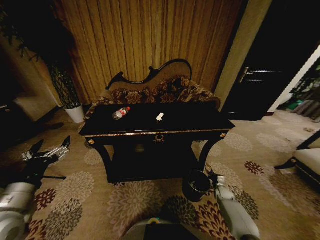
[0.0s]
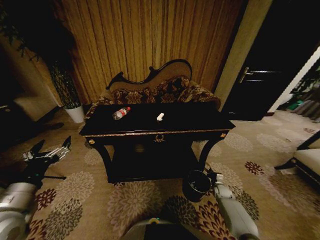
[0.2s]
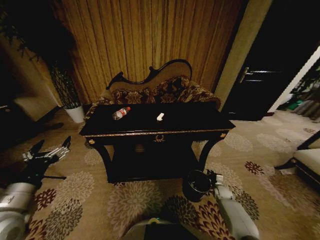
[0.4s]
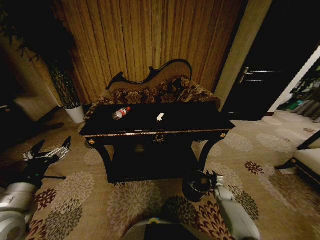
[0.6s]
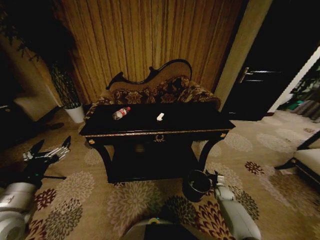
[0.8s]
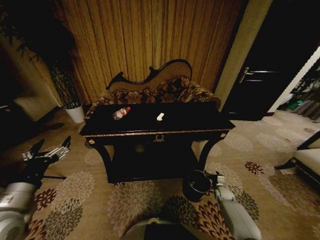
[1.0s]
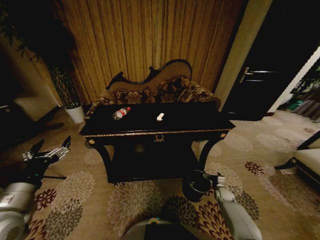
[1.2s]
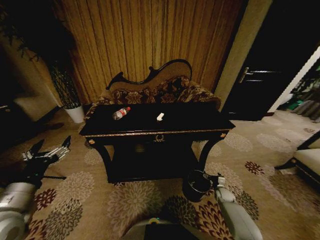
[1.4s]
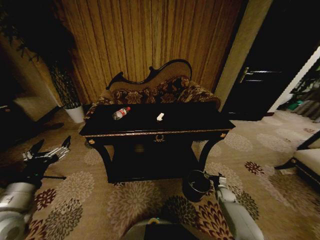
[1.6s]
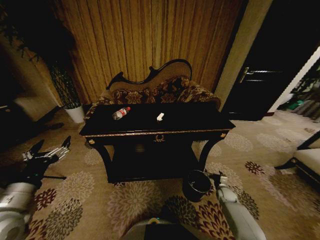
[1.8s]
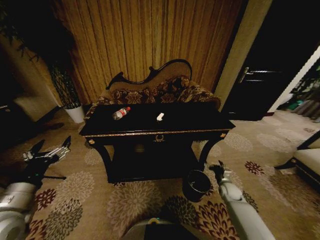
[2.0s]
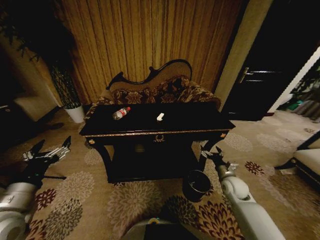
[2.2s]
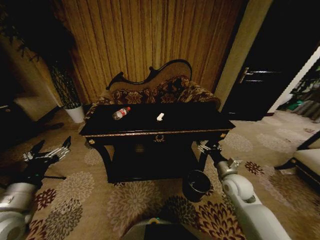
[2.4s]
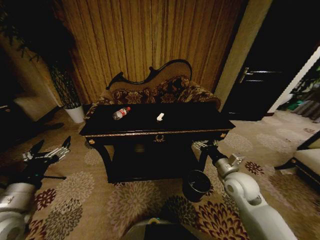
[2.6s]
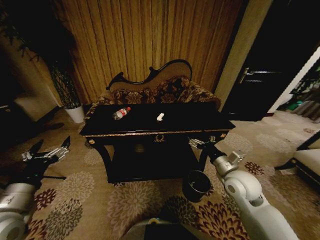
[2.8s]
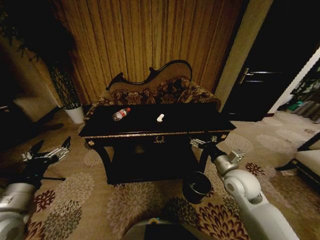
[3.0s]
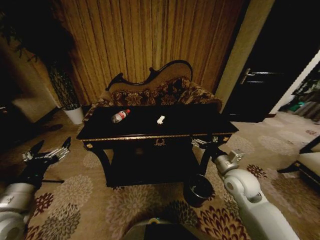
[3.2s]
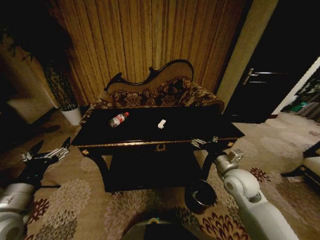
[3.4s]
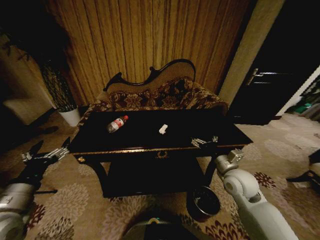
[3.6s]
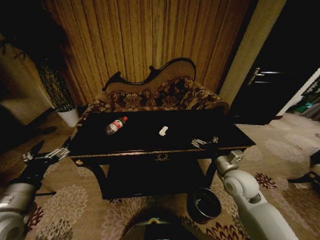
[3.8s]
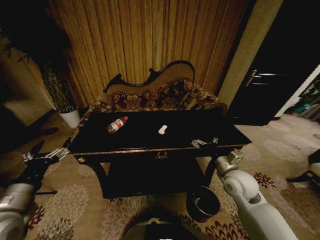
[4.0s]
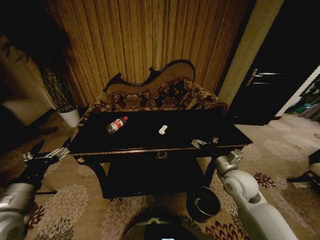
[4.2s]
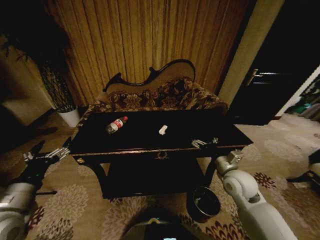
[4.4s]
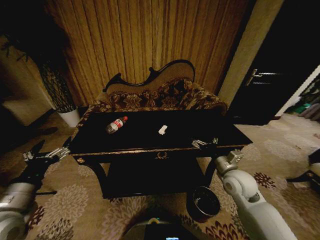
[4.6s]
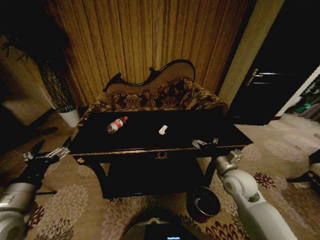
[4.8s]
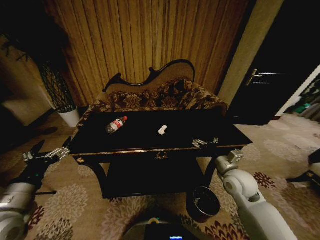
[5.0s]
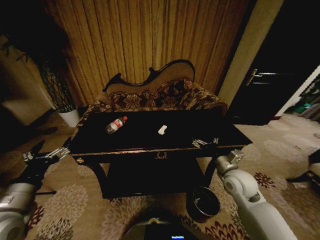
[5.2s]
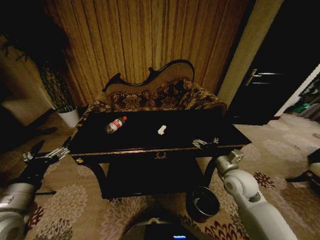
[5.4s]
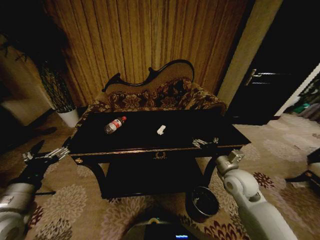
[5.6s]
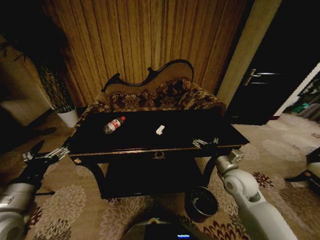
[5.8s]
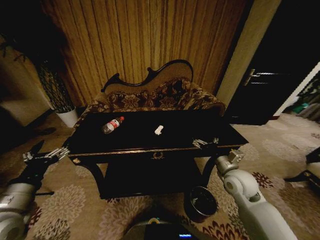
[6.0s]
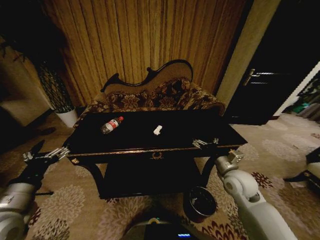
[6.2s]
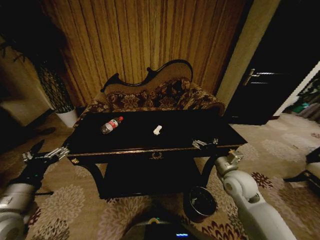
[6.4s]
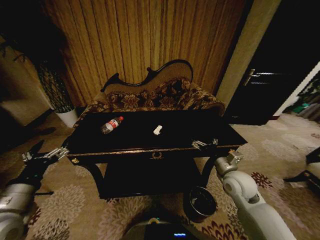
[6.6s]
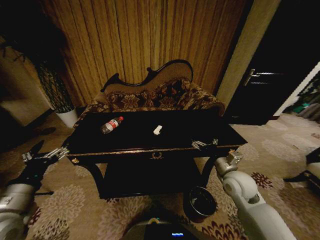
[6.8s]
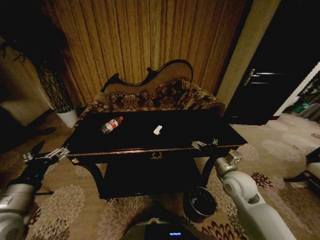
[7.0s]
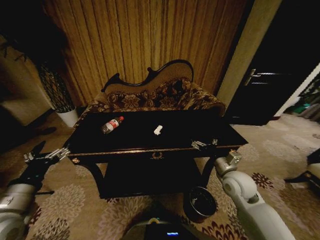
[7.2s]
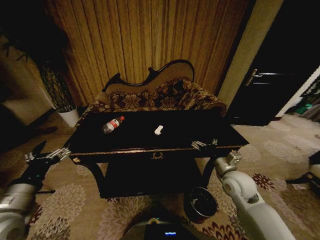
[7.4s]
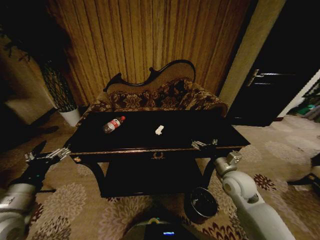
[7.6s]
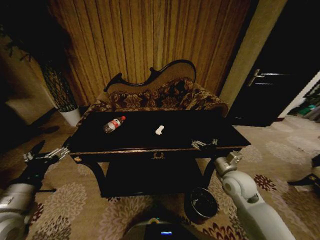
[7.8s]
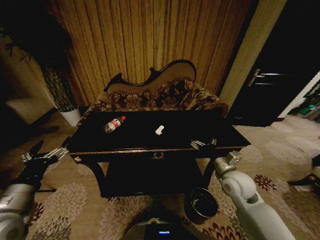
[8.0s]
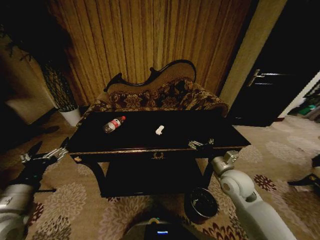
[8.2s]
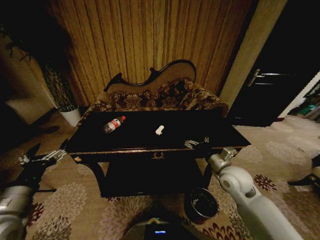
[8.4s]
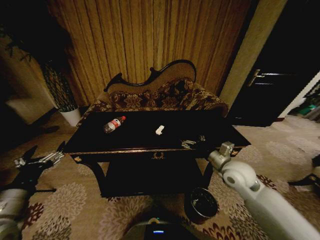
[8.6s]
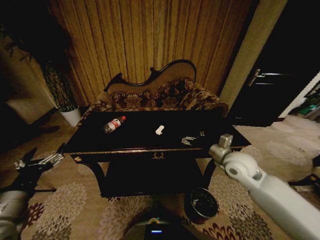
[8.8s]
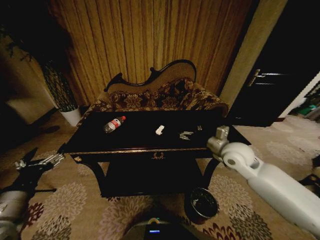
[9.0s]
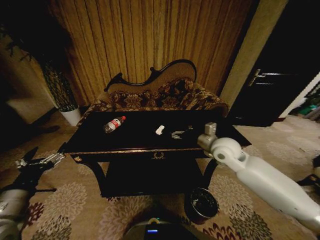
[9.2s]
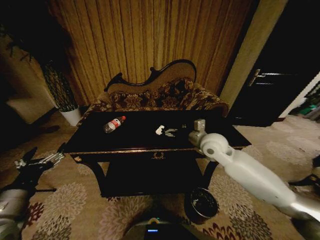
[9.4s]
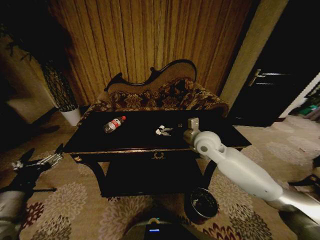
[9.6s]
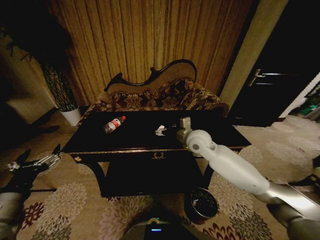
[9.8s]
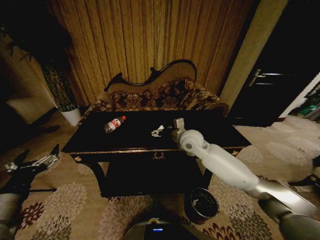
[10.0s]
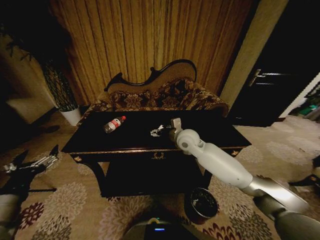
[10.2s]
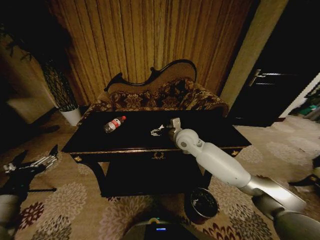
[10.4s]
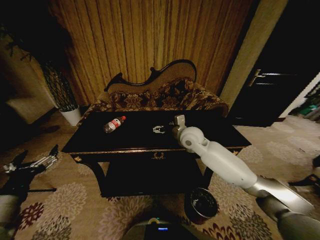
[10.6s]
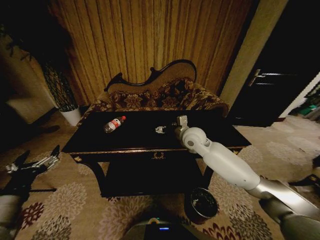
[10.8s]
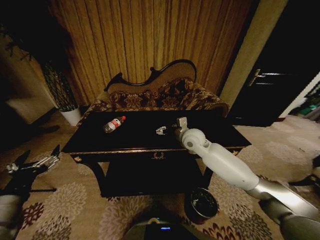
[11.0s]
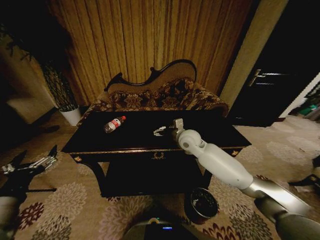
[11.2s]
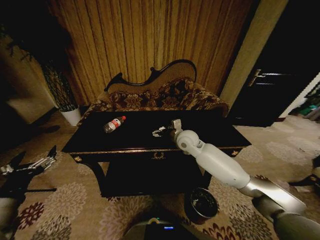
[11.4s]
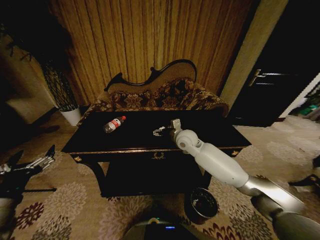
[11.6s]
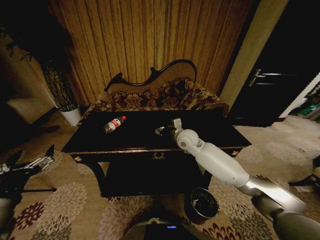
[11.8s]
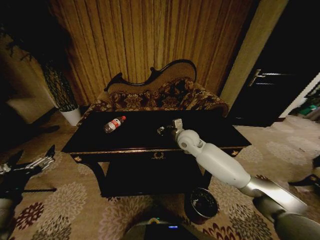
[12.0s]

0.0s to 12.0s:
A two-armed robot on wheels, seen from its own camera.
Task of the whole recording: Move to the front of the table and place the trash on the table into the trash bin.
0.0s to 1.6s: The right gripper opens its fingers.
1.6s to 3.0s: The right gripper goes about 35 cm upward and to the left.
4.4s to 7.6s: Both grippers stay put.
7.6s to 9.0s: The right gripper travels upward and forward by approximately 10 cm.
9.0s to 10.4s: The right gripper travels to the left and forward by some 15 cm.
10.4s to 12.0s: The right gripper closes its fingers.

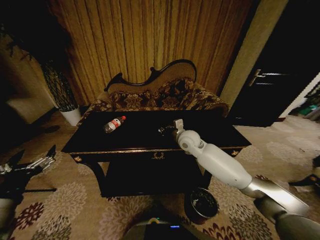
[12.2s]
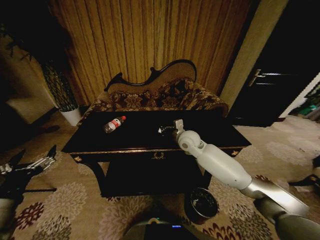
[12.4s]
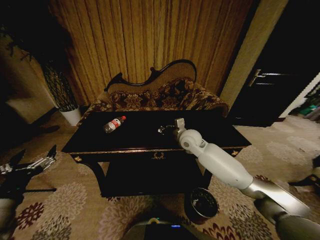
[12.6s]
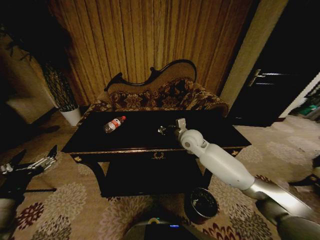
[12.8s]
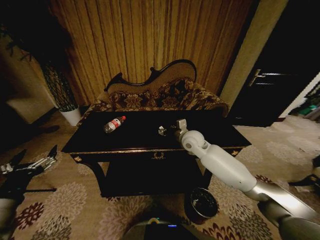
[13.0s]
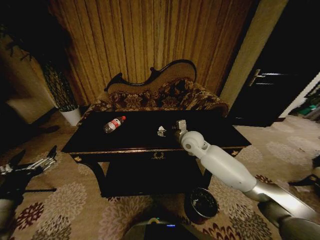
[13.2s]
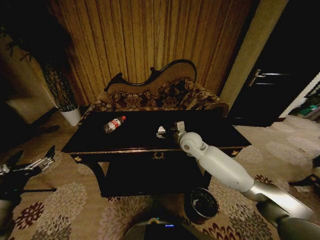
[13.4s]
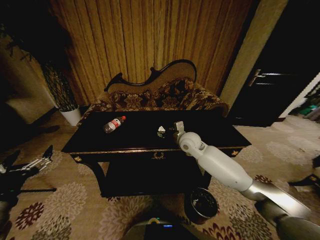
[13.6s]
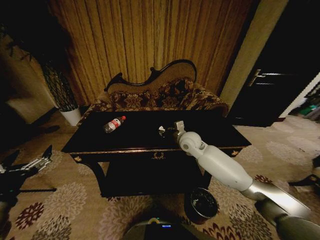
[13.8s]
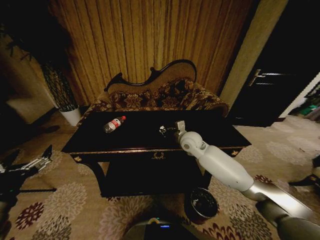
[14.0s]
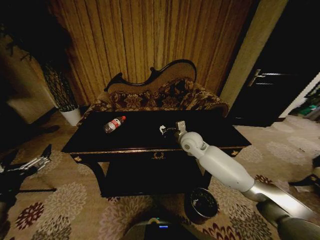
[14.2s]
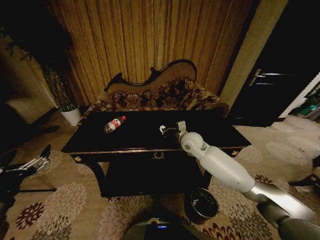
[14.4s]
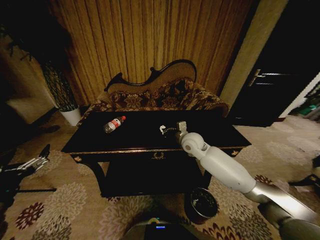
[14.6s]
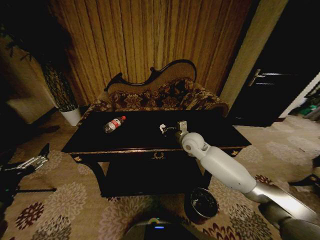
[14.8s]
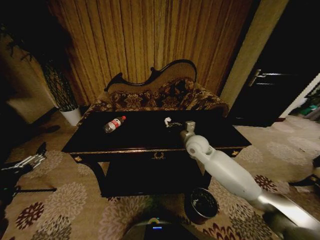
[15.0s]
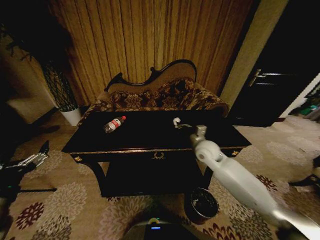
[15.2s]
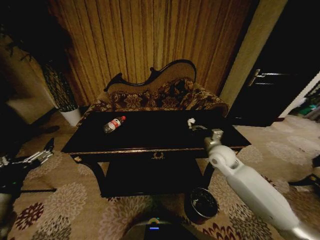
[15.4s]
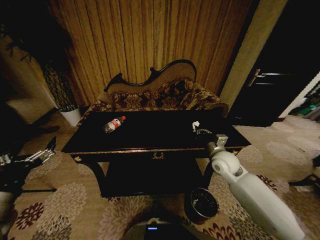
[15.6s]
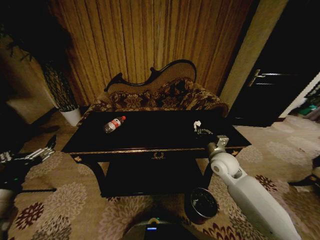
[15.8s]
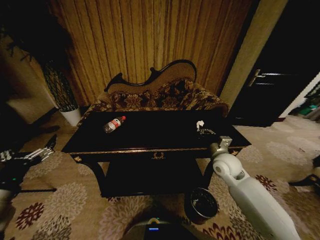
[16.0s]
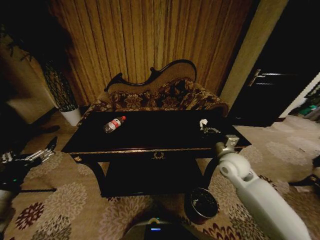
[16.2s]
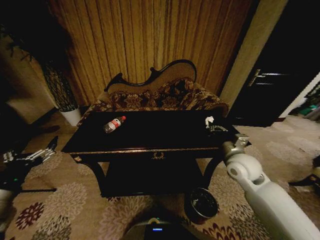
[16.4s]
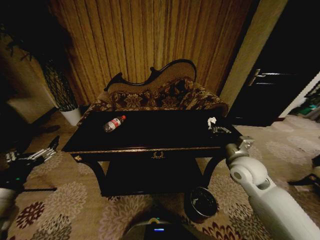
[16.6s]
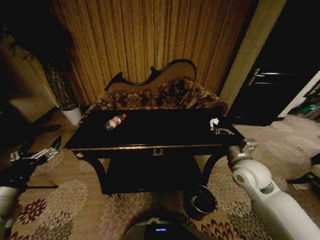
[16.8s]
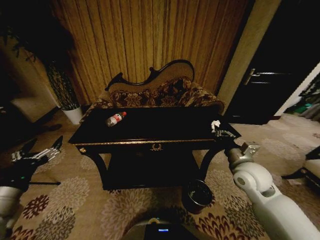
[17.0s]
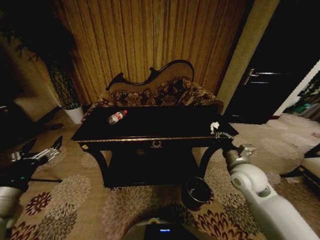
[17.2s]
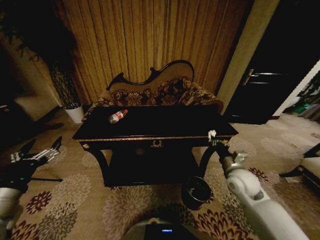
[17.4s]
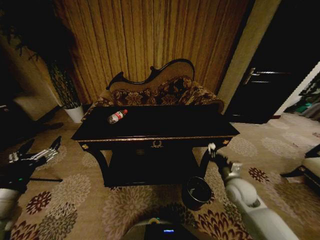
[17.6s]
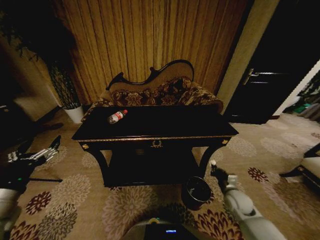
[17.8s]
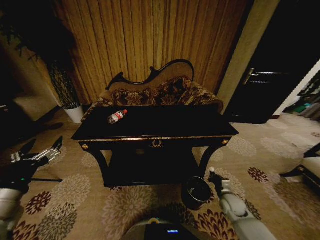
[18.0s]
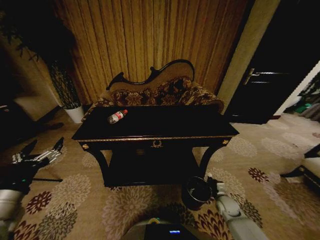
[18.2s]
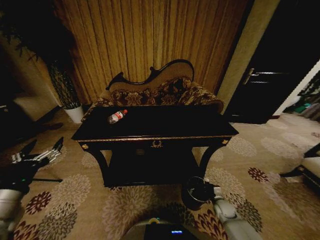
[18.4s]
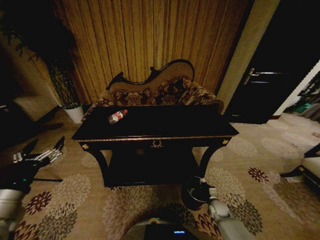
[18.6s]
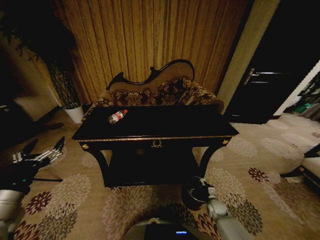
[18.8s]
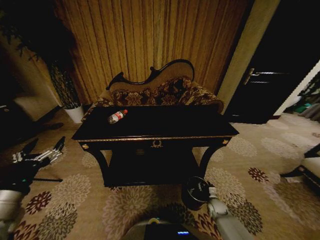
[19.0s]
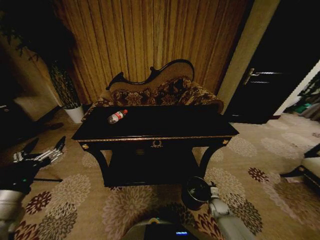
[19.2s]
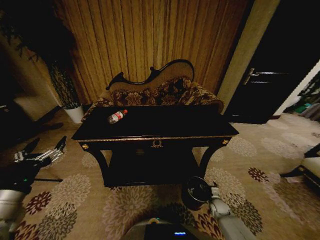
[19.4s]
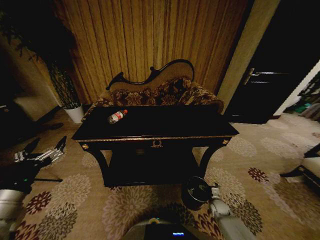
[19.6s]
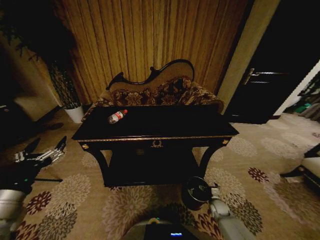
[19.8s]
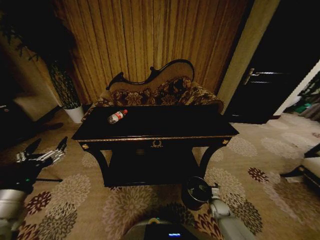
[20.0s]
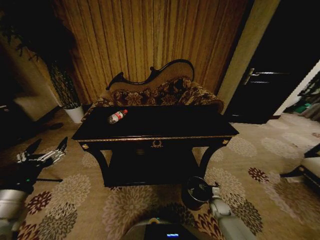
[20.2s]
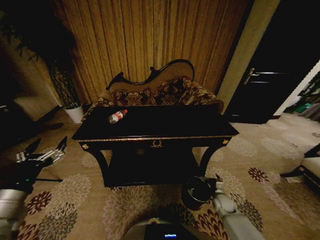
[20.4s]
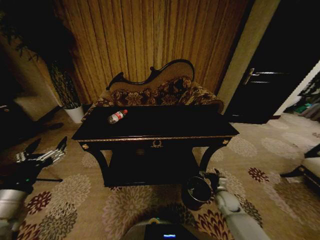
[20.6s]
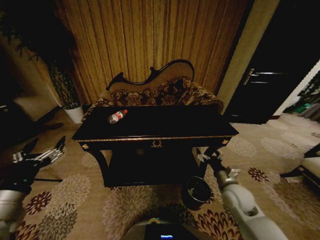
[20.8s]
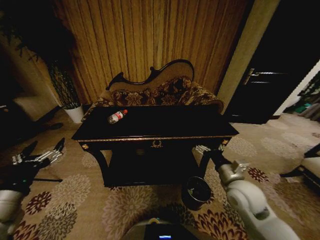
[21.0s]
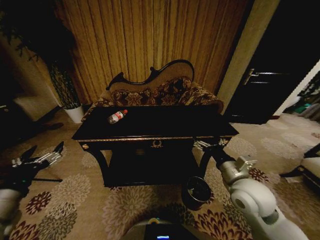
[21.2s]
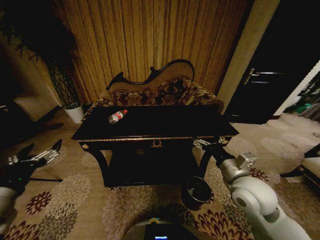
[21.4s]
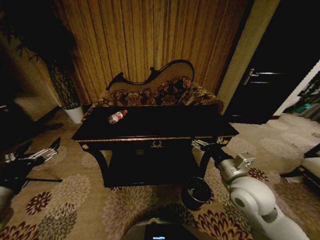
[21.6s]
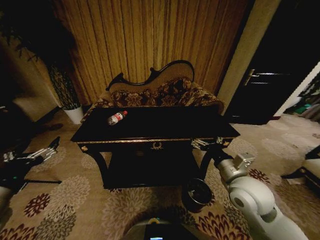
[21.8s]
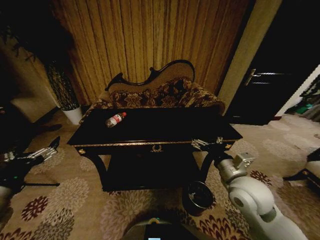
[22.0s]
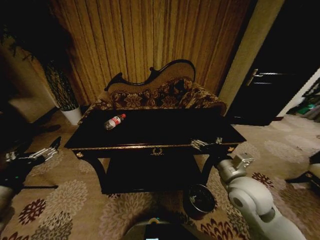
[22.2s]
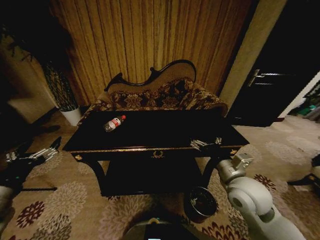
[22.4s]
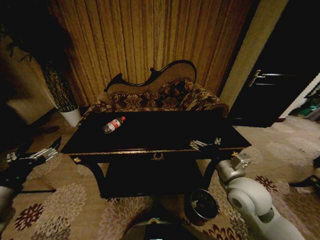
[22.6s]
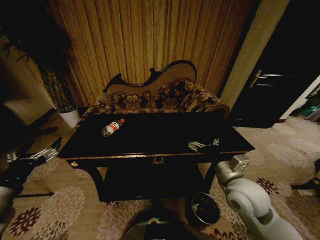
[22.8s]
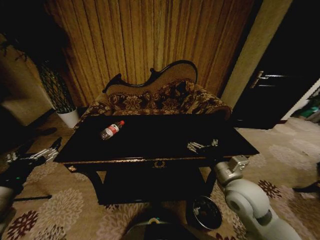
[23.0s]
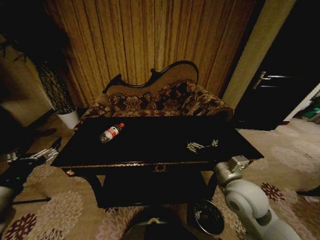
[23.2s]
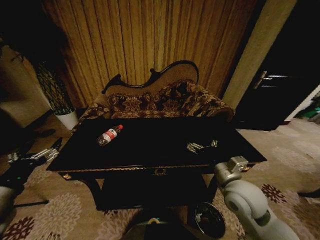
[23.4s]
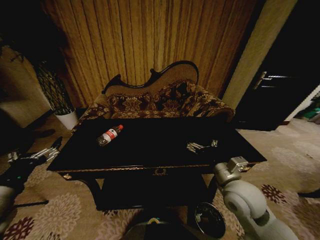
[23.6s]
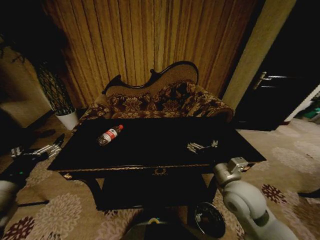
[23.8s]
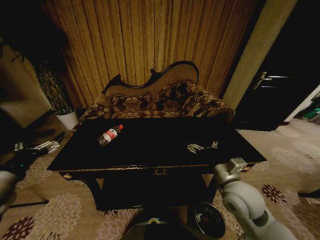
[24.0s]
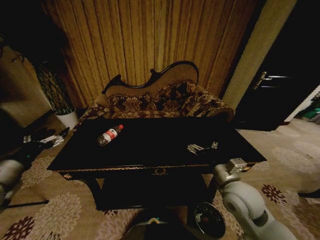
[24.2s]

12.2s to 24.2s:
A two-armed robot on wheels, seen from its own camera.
Task of the whole recording: Move to the front of the table and place the trash on the table into the trash bin.
12.2s to 13.8s: The right gripper opens, then closes again.
13.8s to 15.2s: The right gripper goes roughly 5 cm to the right, and closes up.
15.2s to 16.6s: The right gripper is displaced backward and to the right by roughly 15 cm.
16.6s to 18.2s: The right gripper heads downward, covering roughly 30 cm.
18.2s to 19.8s: The right gripper shifts approximately 10 cm downward, and opens up.
19.8s to 21.2s: The right gripper shifts some 40 cm upward.
22.6s to 24.2s: The left gripper heads forward and to the left, covering approximately 10 cm.
